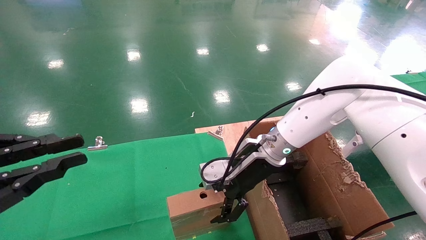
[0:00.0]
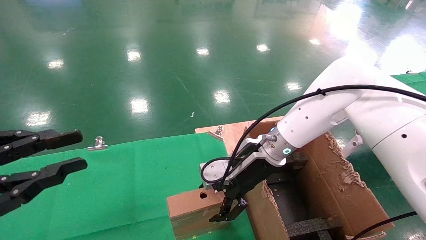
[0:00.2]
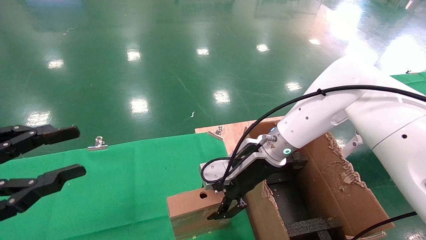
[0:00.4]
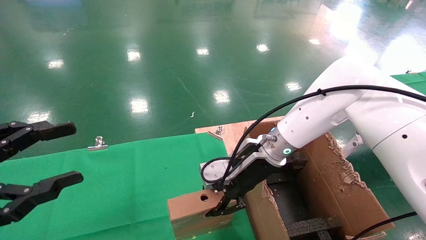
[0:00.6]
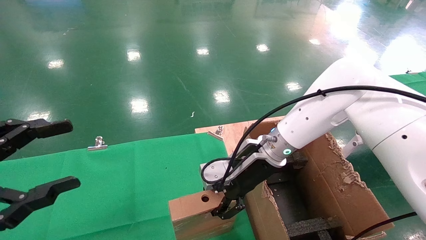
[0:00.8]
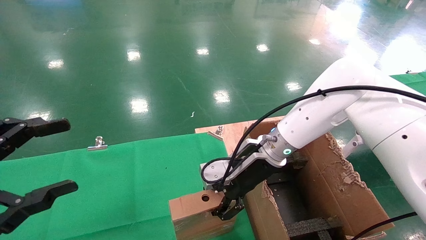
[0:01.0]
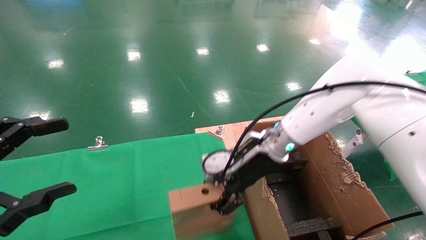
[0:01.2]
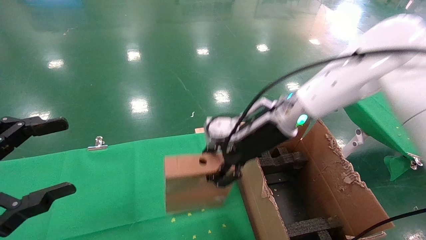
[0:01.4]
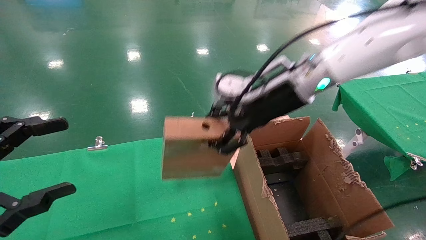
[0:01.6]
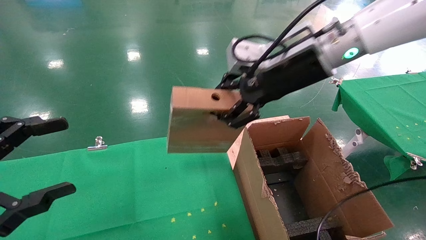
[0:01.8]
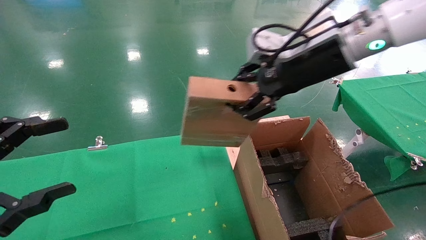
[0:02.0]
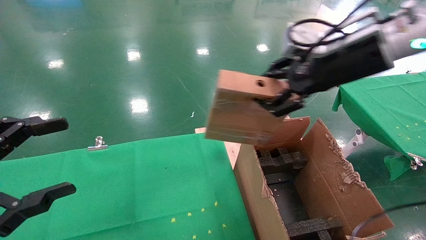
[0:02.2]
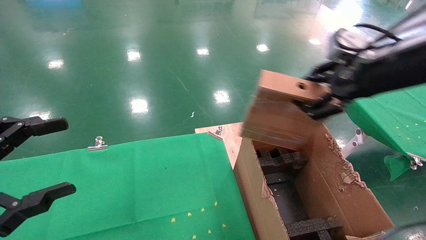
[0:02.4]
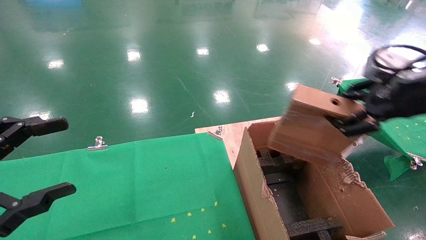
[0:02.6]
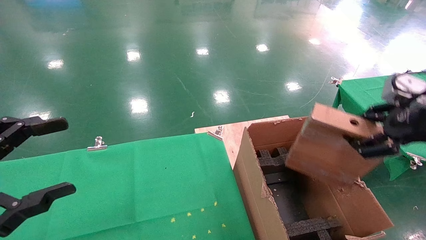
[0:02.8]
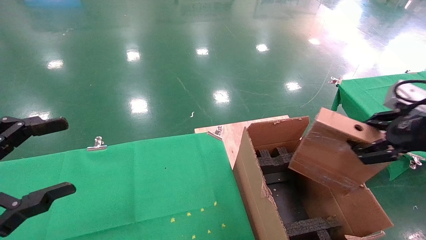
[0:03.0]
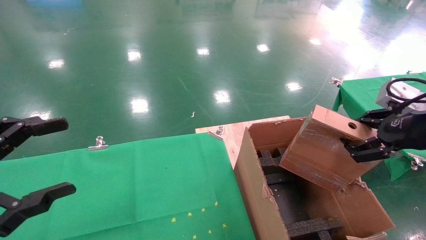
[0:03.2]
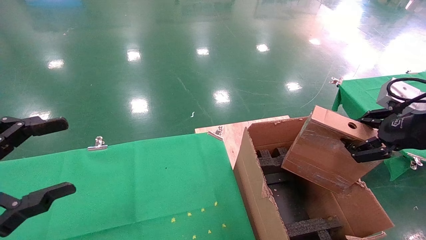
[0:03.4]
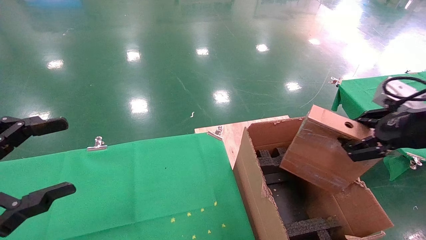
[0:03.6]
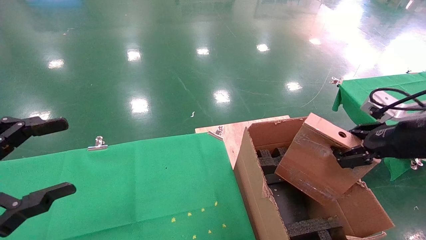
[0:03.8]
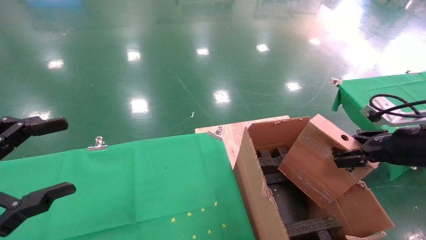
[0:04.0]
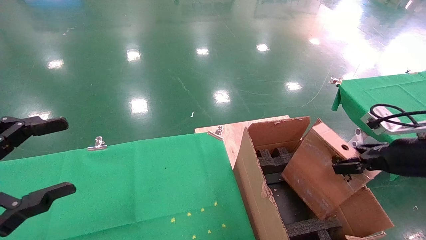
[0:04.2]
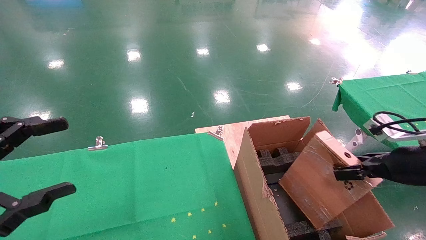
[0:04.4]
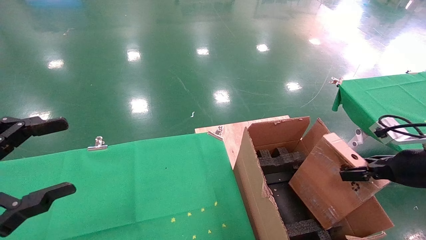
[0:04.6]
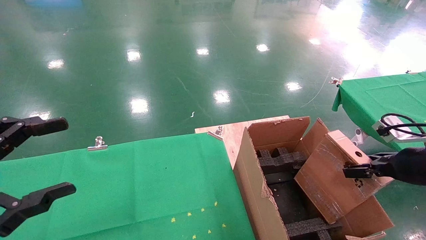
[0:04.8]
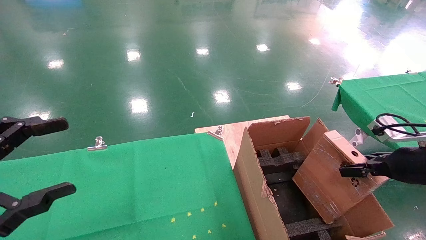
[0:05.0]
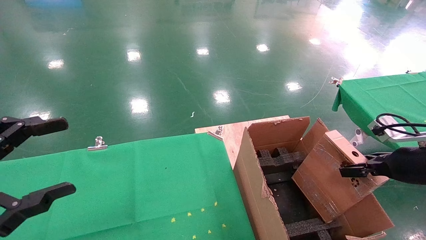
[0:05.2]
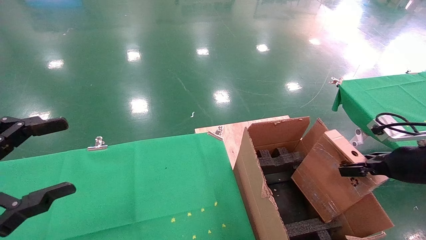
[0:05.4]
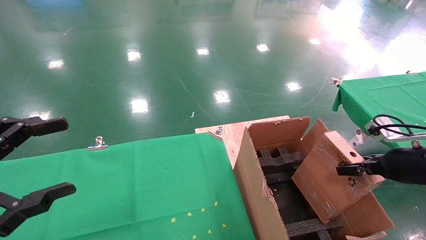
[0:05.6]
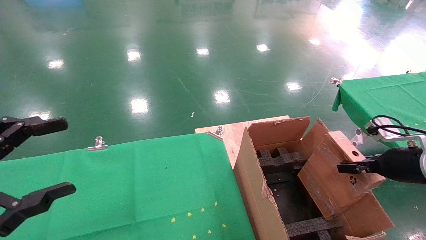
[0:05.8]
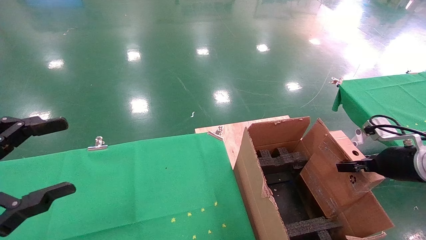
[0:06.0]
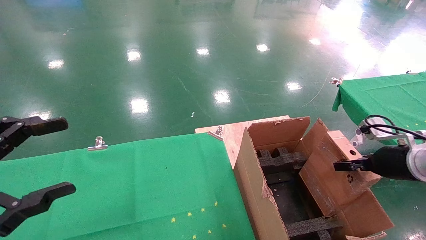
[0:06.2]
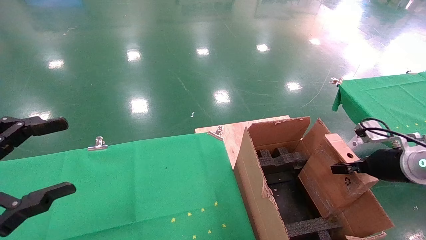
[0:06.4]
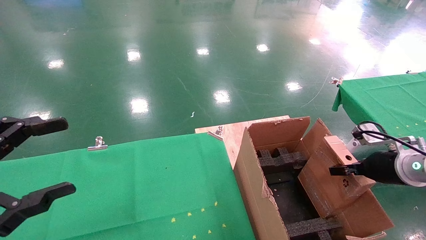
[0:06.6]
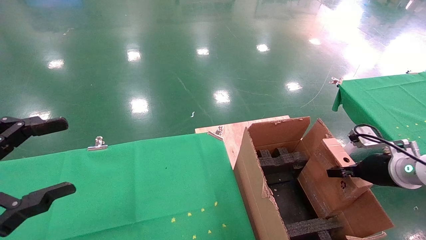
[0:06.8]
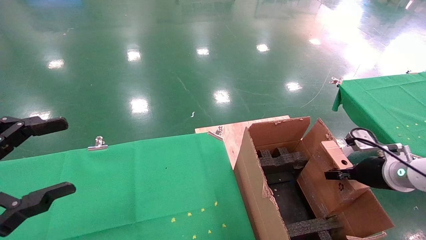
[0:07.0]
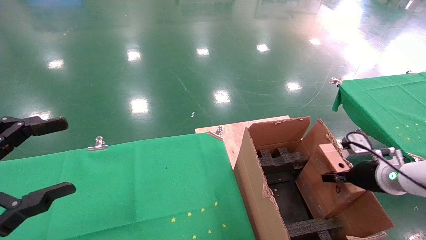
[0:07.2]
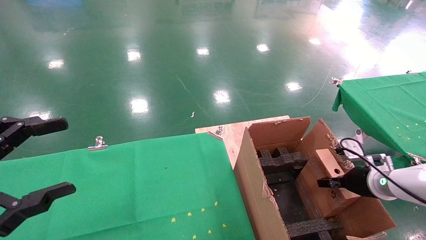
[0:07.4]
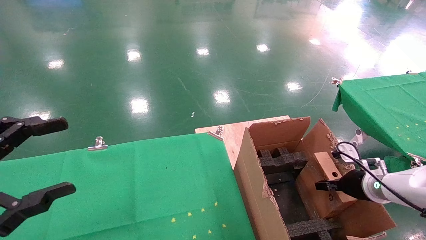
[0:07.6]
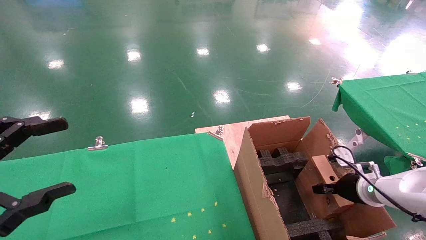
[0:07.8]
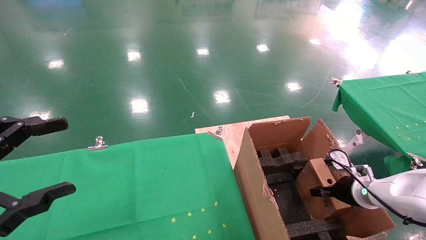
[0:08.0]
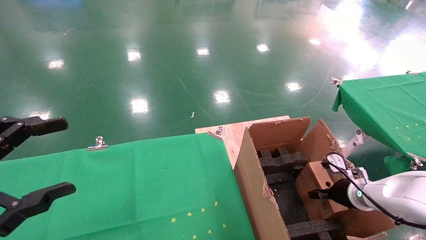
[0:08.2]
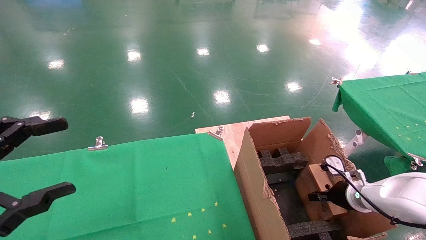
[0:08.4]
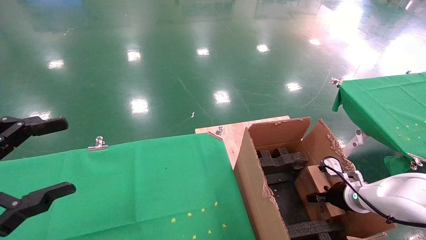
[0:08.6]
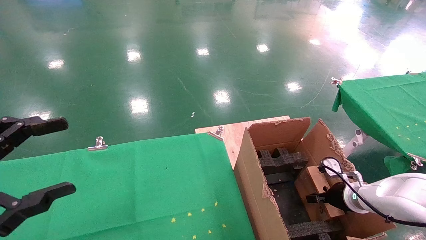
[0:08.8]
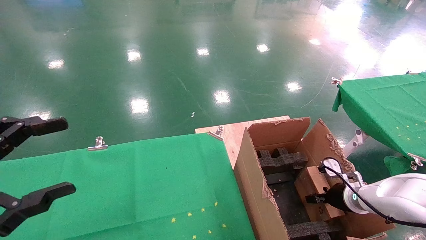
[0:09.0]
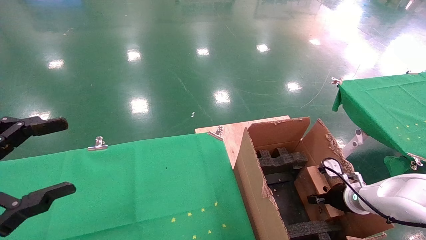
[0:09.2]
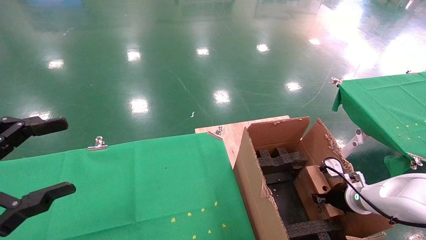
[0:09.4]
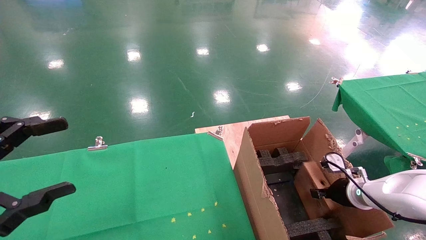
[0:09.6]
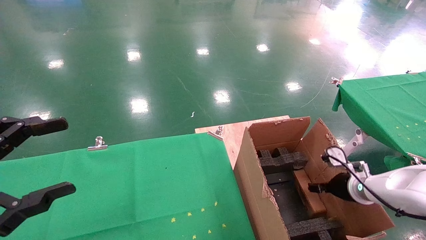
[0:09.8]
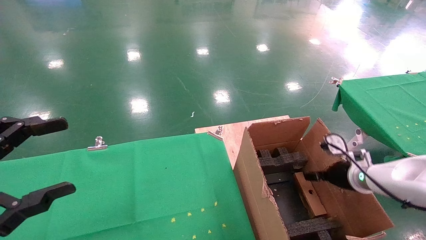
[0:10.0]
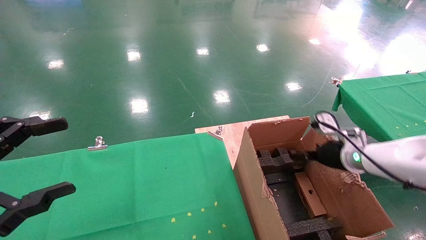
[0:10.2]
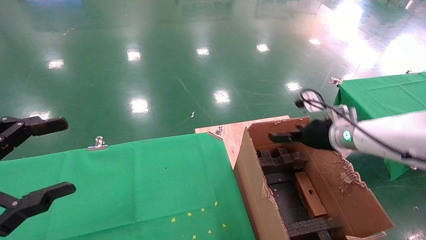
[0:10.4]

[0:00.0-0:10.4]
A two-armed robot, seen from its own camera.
Task of the whole recording: using a robotic arm to pick up a cardboard box and palace it the carton.
Step, 0:01.0 to 0:10.2: Place the mouse and the power cord paper box into the container.
0:00.0 to 0:01.4: The right gripper goes some 10 cm upward, and closes up. The left gripper opens up.
0:01.4 to 0:03.0: The right gripper travels to the right and backward by some 30 cm.
0:03.0 to 0:04.4: The right gripper heads downward, covering roughly 10 cm.
0:04.4 to 0:06.0: The right gripper changes place by roughly 5 cm.
0:06.0 to 0:07.4: The right gripper is displaced downward by about 10 cm.
0:07.4 to 0:09.0: The right gripper is displaced downward by roughly 10 cm.
0:09.0 to 0:10.4: The right gripper heads upward and to the left, covering roughly 20 cm, and opens.

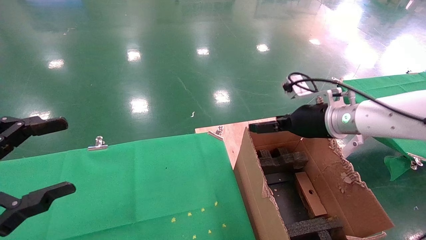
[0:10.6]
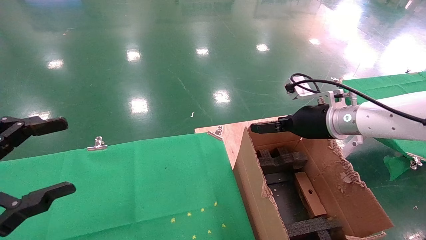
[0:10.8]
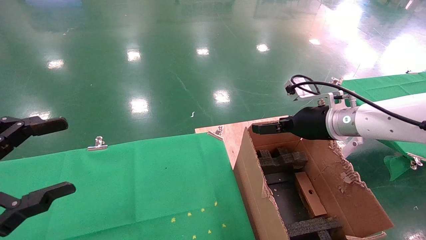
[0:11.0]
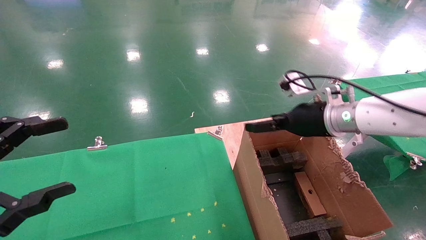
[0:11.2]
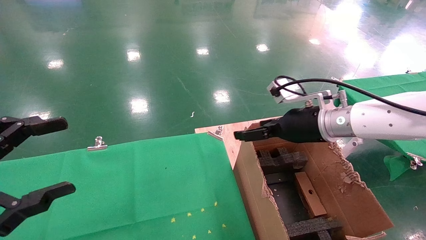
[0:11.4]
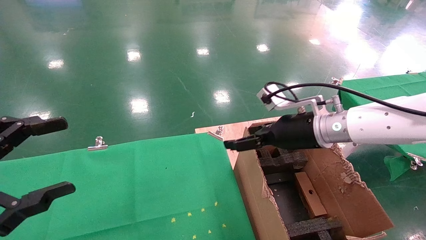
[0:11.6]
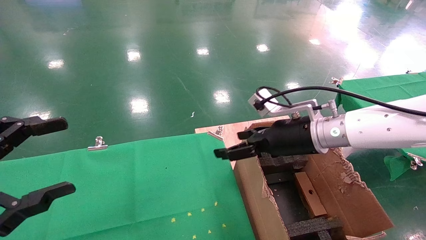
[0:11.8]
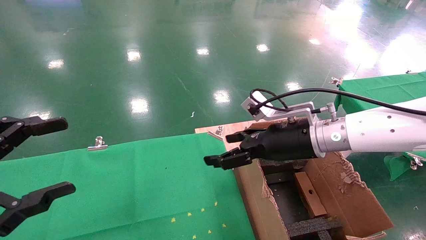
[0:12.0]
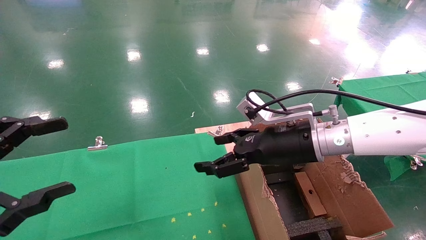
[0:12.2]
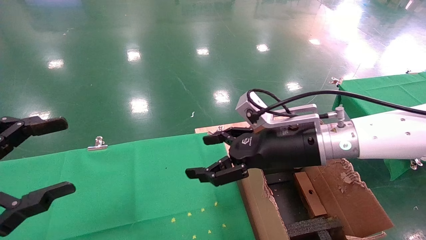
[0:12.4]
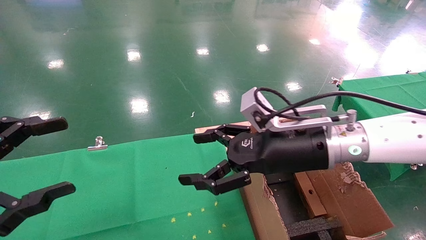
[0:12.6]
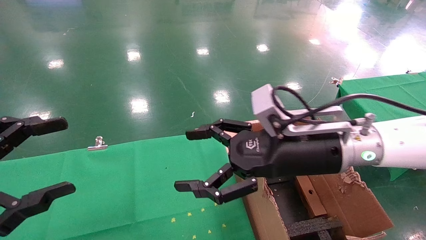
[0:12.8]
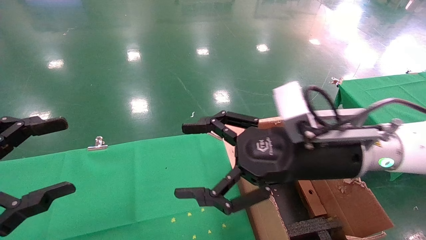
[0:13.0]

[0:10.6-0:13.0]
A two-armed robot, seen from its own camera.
Task of the whole recording: using a robotic arm to pick up a cardboard box and palace it the carton.
0:10.6 to 0:11.8: The right gripper shifts about 5 cm to the left.
0:11.8 to 0:13.0: The right gripper moves backward, about 10 cm.
